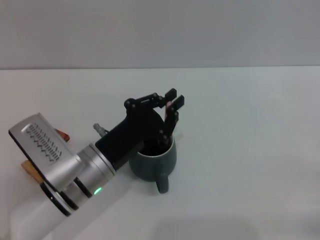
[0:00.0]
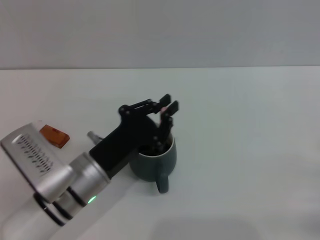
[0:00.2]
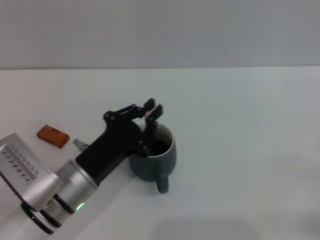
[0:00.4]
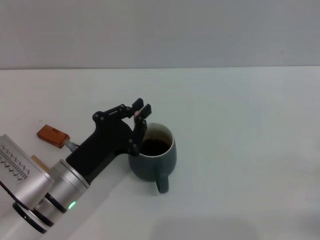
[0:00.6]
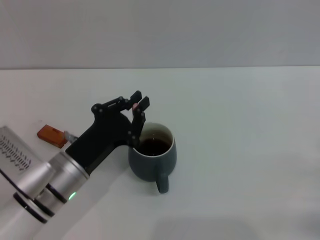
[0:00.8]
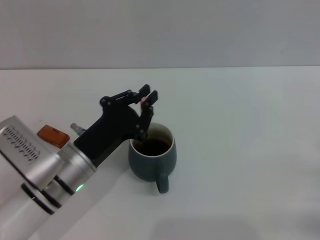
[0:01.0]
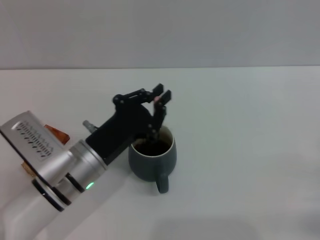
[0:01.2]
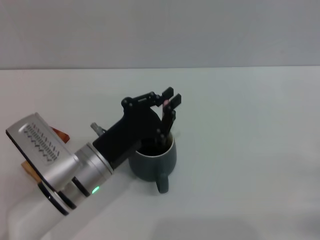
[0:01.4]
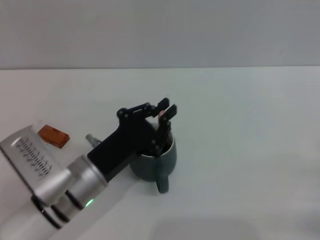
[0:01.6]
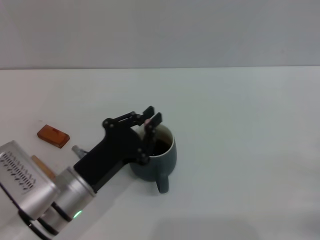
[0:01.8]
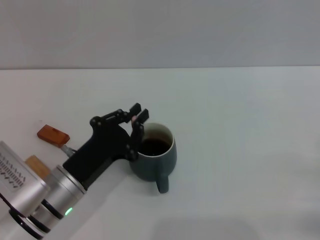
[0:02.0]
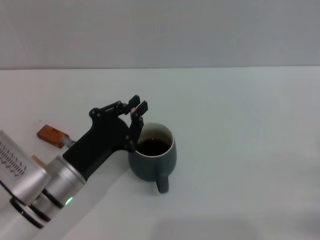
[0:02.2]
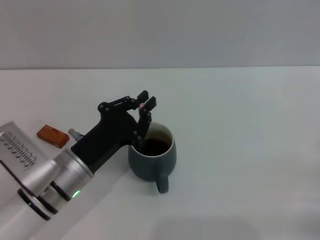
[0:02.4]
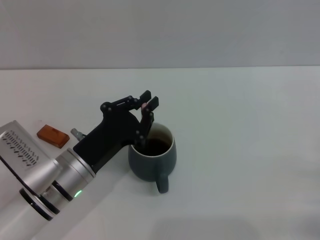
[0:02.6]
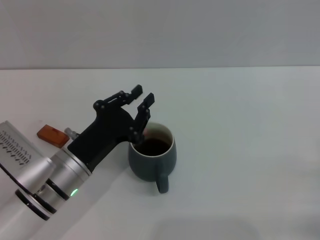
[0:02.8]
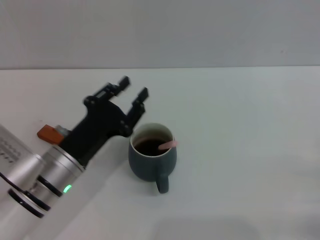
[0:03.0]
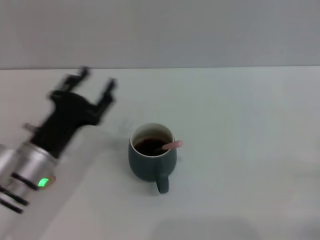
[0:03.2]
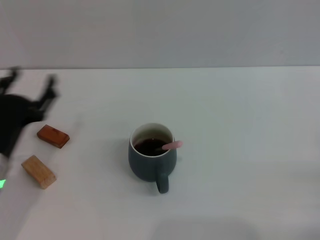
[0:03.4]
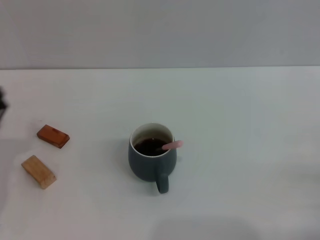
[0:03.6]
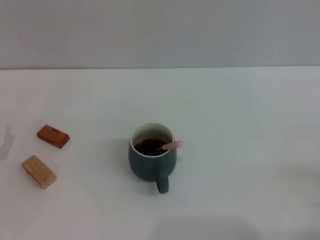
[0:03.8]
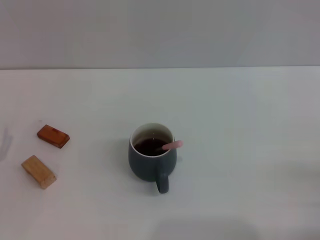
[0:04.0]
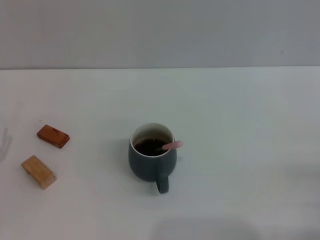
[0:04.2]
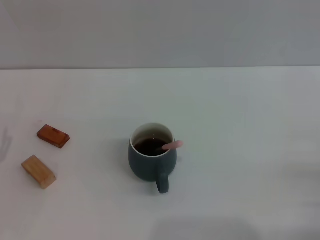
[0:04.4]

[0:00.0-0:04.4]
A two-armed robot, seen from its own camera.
Task of the whole recording: Move the grey cup to the center, lift the pink spoon, stir it three times in the cup, and put the spoon into the cup.
Step, 0:00.0 to 0:03.0: Stir the coffee in the cup with the left gripper.
0:00.0 to 0:03.0: The grippers make only small movements.
0:03.0 to 0:04.4: The left gripper is displaced to the left by roughly 15 cm, and opens up.

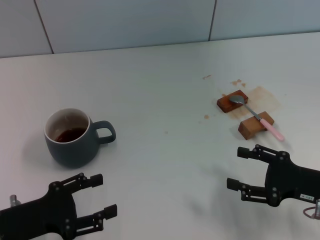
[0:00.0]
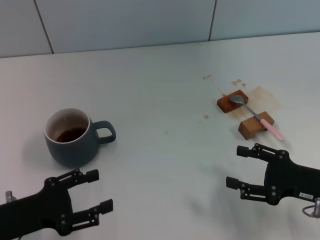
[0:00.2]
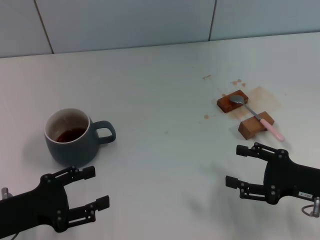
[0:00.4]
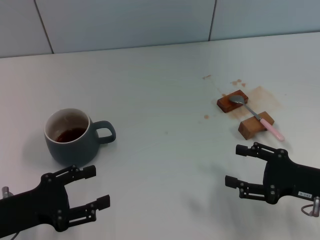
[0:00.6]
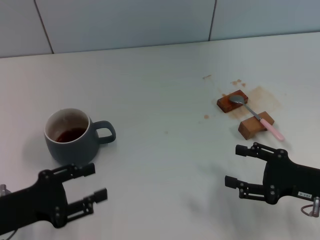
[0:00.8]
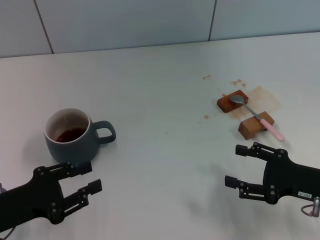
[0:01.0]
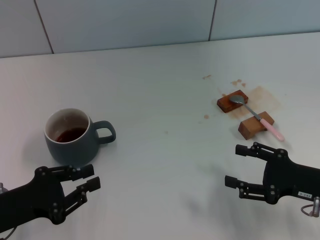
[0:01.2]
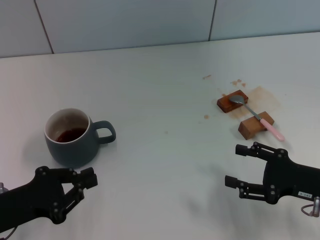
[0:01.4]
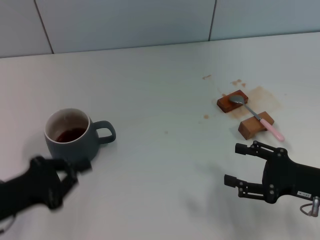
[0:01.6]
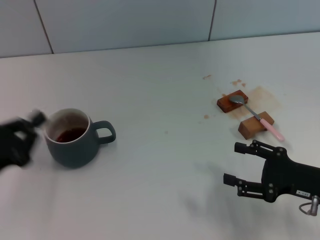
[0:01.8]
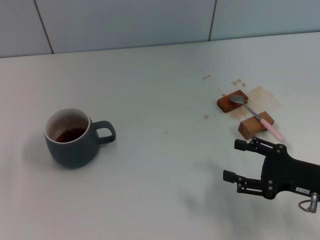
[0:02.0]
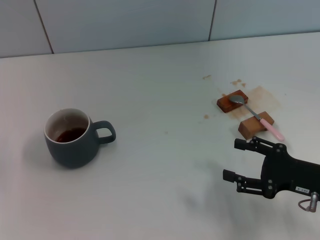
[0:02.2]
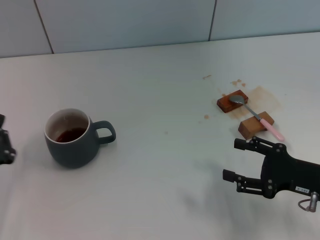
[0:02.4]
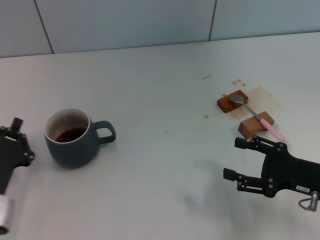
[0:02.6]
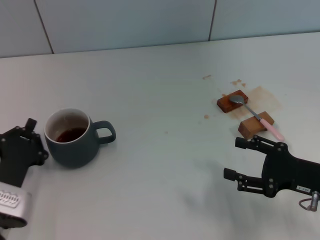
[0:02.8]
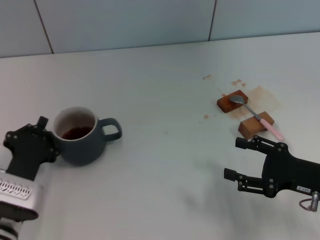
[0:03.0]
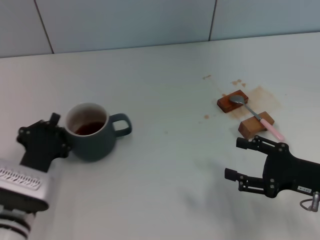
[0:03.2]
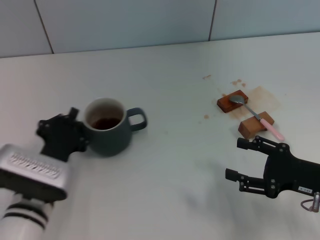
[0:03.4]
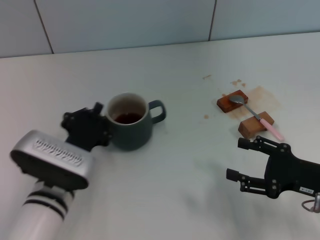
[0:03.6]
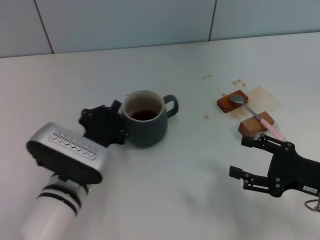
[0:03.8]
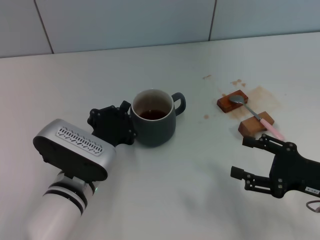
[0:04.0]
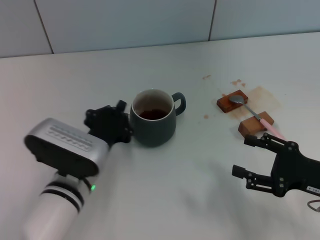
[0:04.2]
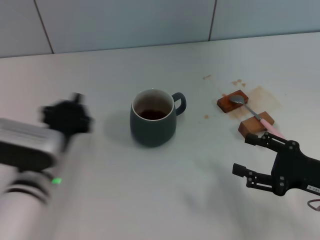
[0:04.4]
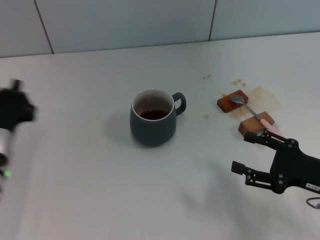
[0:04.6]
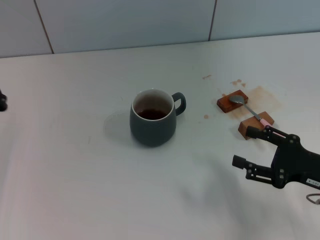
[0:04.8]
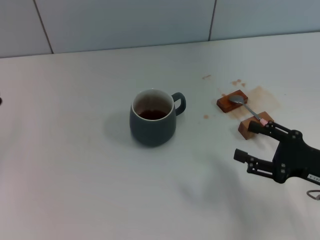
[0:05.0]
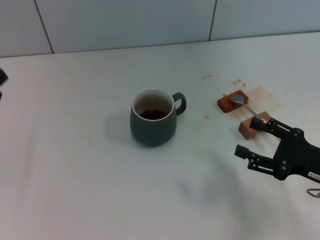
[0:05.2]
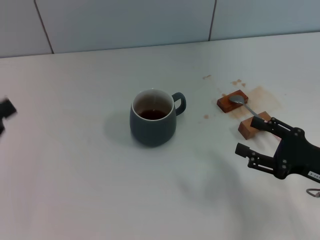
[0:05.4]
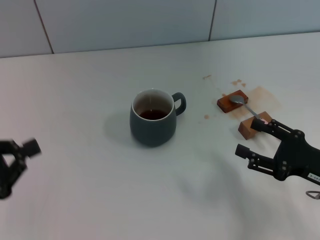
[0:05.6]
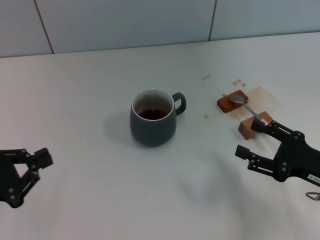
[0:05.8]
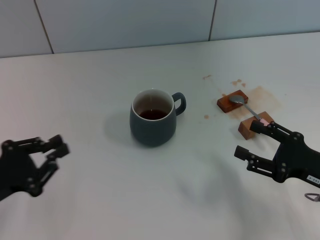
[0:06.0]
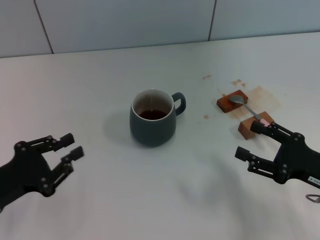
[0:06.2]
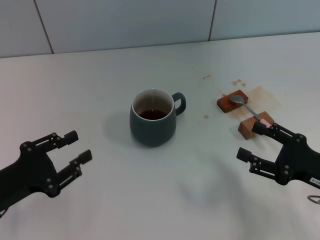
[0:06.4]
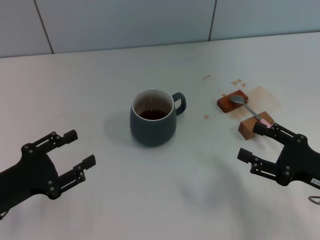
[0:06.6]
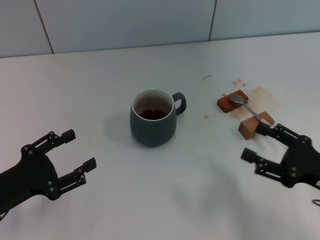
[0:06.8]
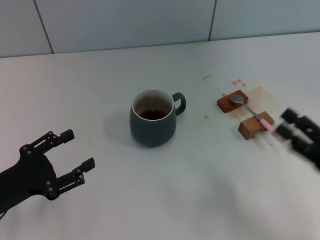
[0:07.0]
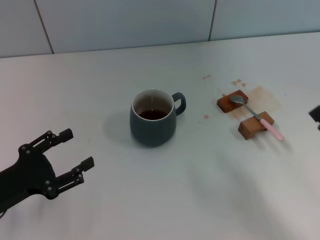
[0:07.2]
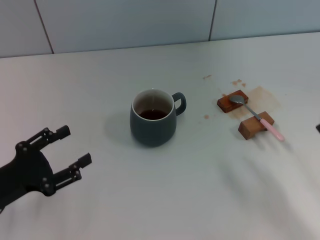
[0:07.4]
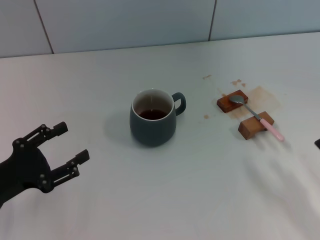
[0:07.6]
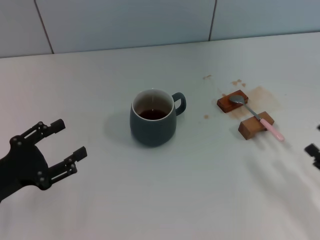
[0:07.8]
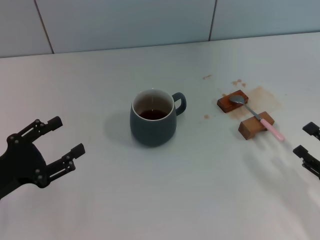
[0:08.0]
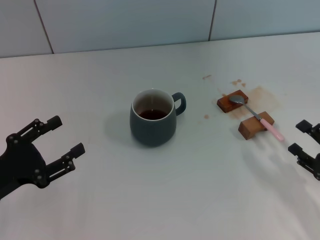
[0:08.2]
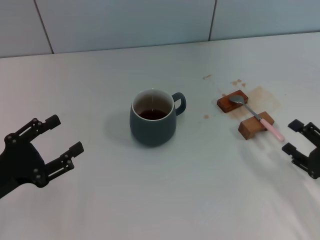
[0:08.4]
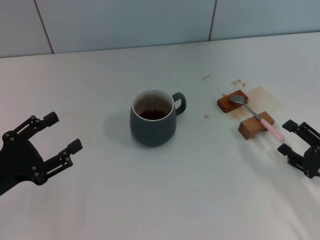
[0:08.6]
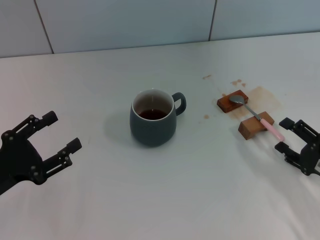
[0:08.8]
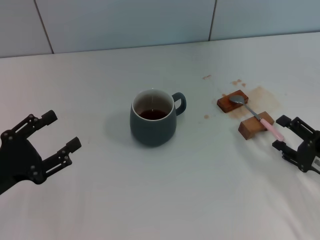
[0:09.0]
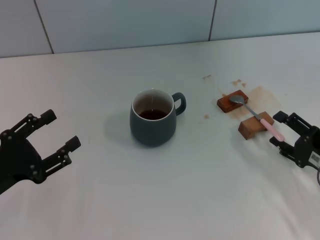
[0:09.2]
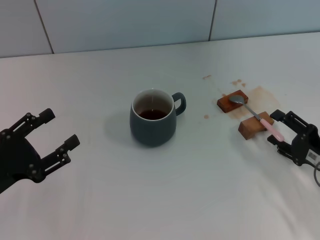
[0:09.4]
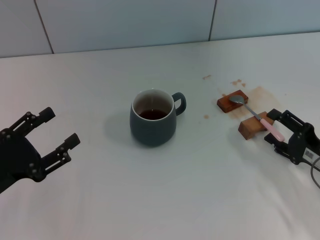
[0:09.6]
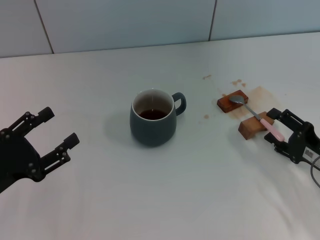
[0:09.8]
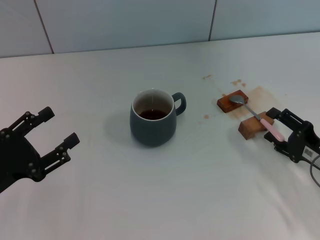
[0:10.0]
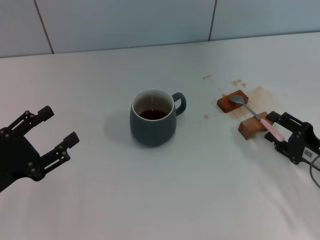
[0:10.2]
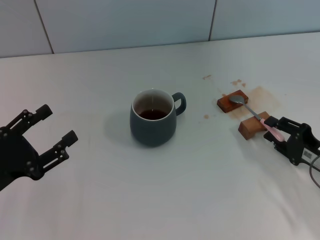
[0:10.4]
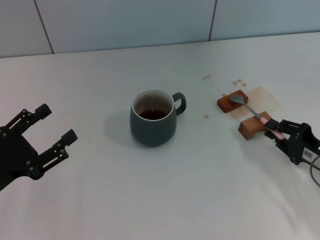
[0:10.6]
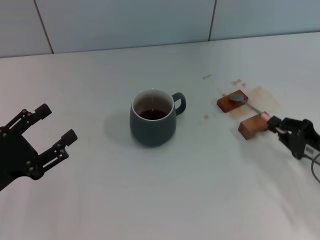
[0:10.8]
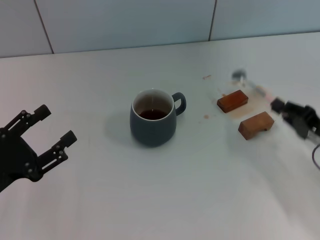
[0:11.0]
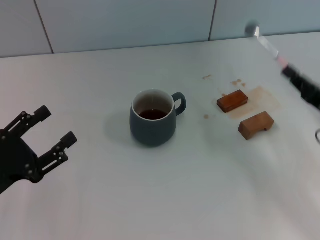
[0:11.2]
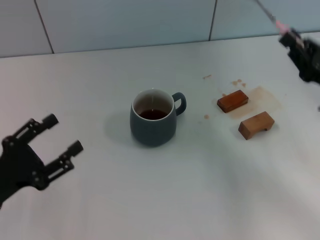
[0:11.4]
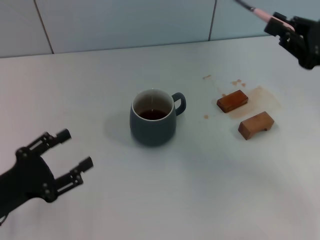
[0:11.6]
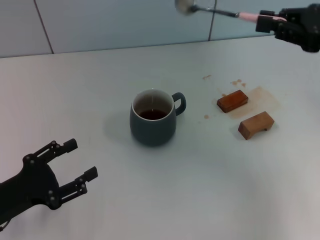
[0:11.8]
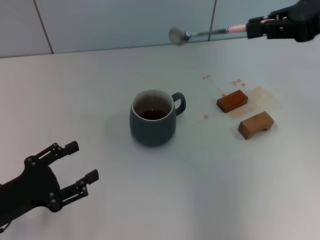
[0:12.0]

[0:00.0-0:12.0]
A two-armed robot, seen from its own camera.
Task of the whole recording: Move the grey cup to the center, lift the pink spoon, stir it three times in the cup, and put the spoon into the cup.
Step, 0:00.0 to 0:04.2: Move the cup with coffee to the center of view with the left gripper.
Step, 0:04.4 to 0:11.0: Pick up the spoon with the right gripper.
0:00.0 to 0:01.6: The left gripper closes its fingers.
0:01.6 to 0:03.0: The left gripper moves to the right and downward, some 10 cm.
0:03.0 to 0:04.4: The left gripper goes some 5 cm to the right.
0:04.4 to 0:06.0: The left gripper heads to the left, covering approximately 15 cm.
0:06.0 to 0:07.6: The right gripper heads backward, covering approximately 5 cm. The left gripper opens its fingers.
0:07.6 to 0:09.0: The right gripper travels forward by about 5 cm.
0:09.0 to 0:10.4: The grippers move only a little.
0:10.4 to 0:12.0: The right gripper shifts about 30 cm upward, and closes up.

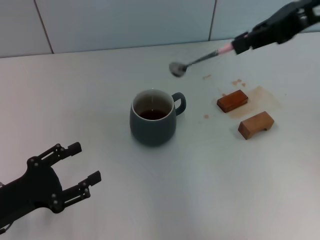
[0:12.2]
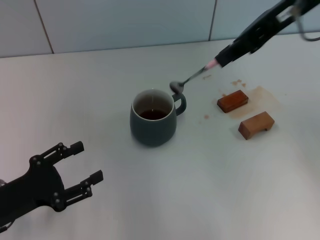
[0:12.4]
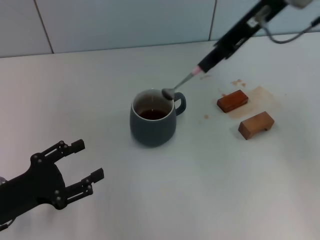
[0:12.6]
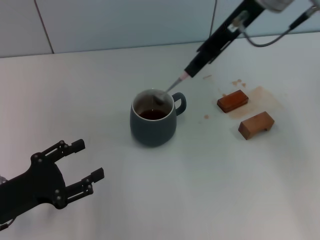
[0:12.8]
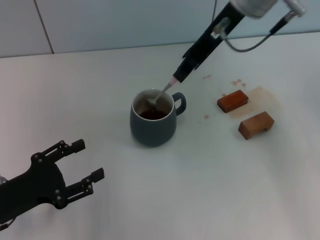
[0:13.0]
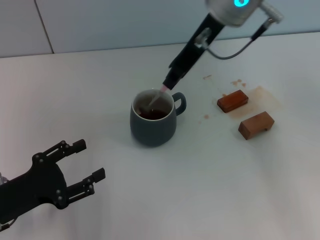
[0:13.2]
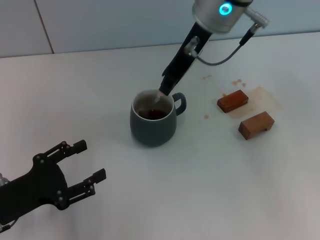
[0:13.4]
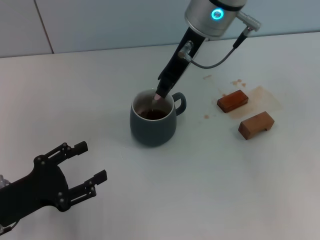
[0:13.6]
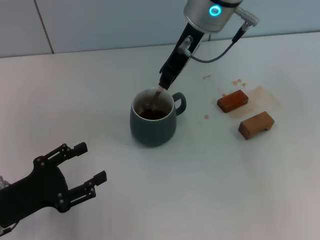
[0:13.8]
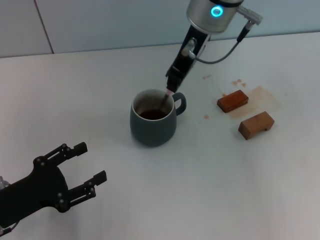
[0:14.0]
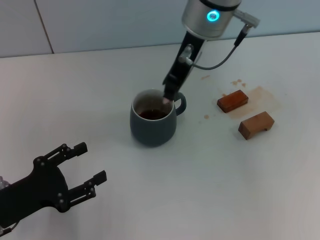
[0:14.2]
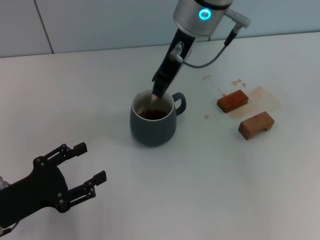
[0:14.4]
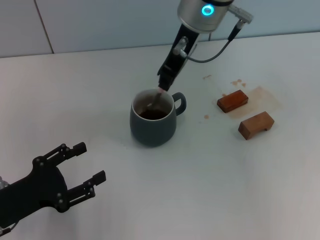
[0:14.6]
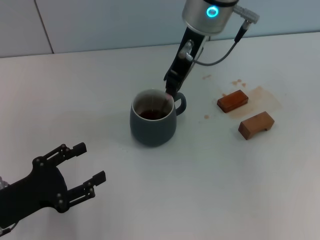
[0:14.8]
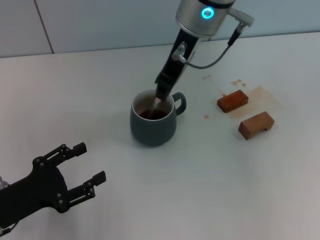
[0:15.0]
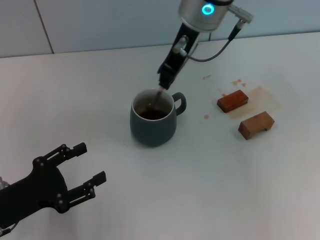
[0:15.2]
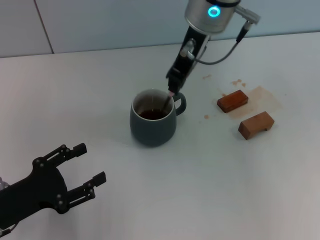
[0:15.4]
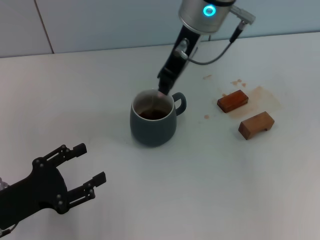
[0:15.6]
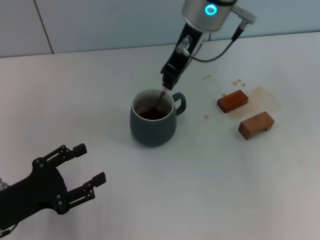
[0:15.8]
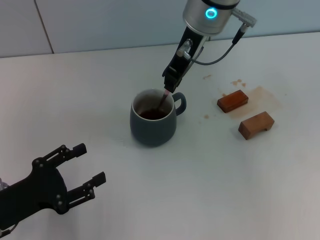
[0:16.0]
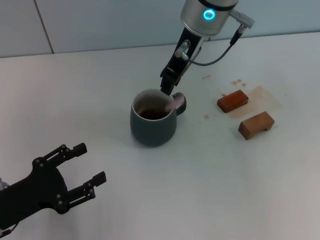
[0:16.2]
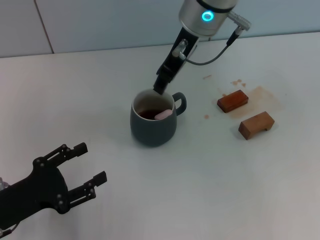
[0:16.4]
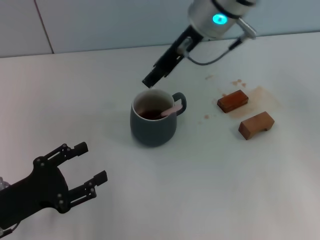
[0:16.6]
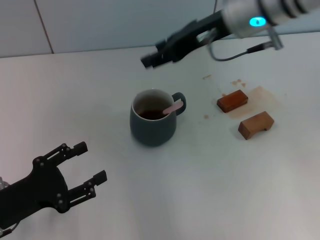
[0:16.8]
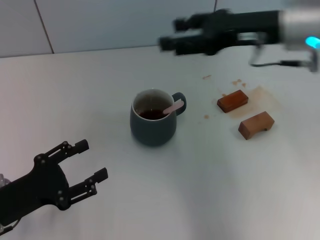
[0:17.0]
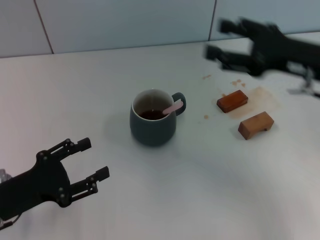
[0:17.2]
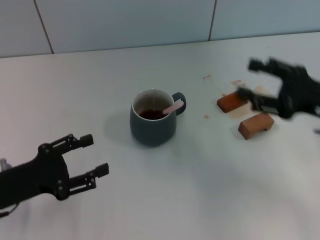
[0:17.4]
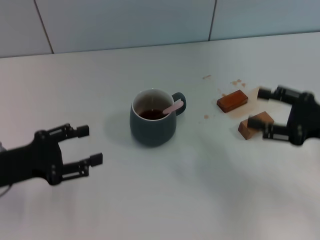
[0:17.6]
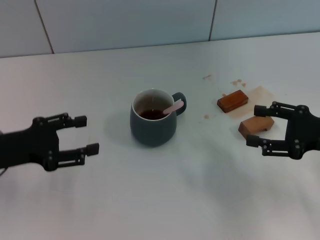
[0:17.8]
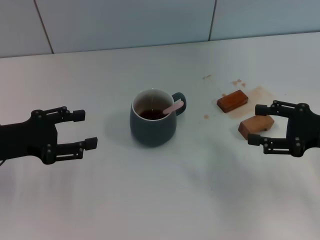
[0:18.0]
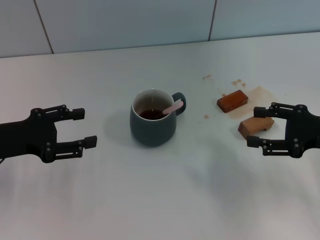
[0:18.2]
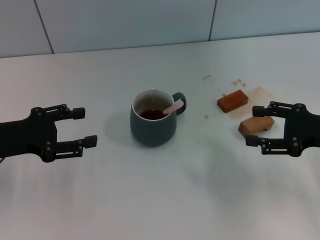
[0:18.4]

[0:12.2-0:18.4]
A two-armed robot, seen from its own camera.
Task of the whole recording: Move the grey cup to the center, lift the pink spoon, stir it three times in the cup, and put the spoon into the cup.
Step, 0:12.2 to 0:16.2: Stir the coffee in the cup with the right gripper.
0:12.2 to 0:13.8: The right gripper moves to the left, some 15 cm.
0:13.8 to 0:15.4: The grippers make only small movements.
0:15.4 to 0:16.8: The right gripper goes about 5 cm to the right, and opens up.
0:16.8 to 0:18.4: The right gripper travels to the right, downward and backward by approximately 25 cm. Meanwhile the left gripper is displaced forward and upward by about 10 cm.
